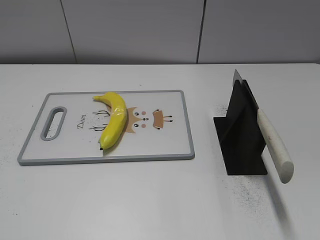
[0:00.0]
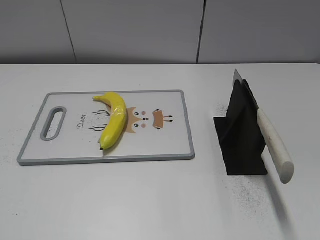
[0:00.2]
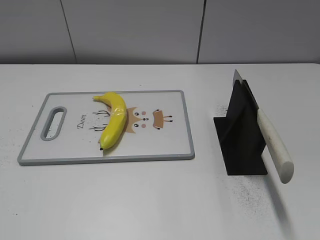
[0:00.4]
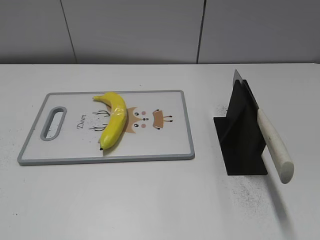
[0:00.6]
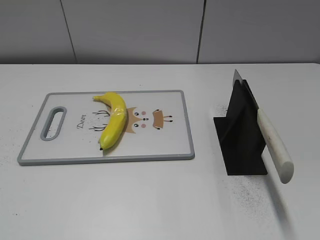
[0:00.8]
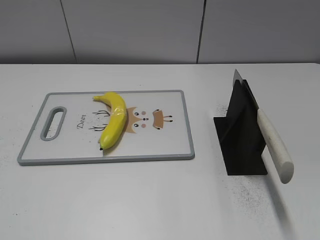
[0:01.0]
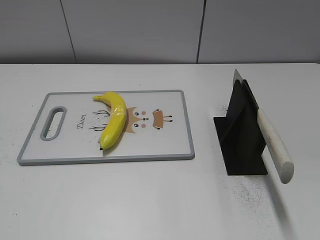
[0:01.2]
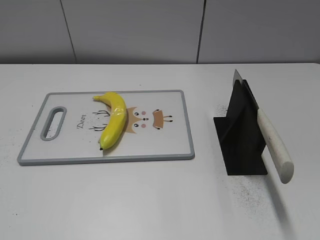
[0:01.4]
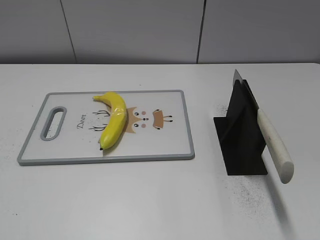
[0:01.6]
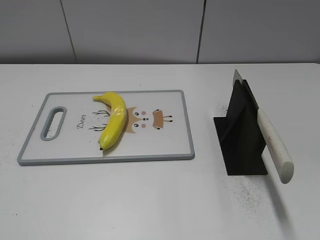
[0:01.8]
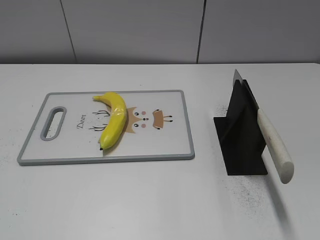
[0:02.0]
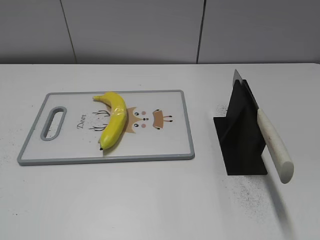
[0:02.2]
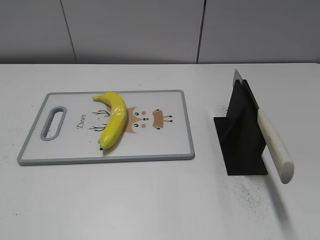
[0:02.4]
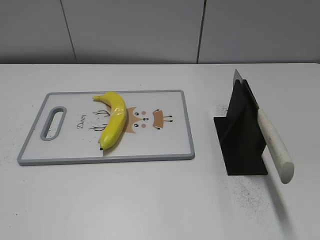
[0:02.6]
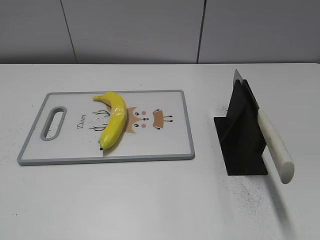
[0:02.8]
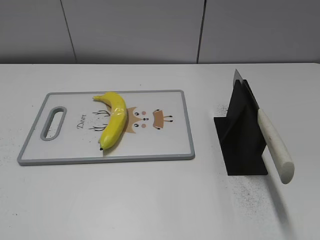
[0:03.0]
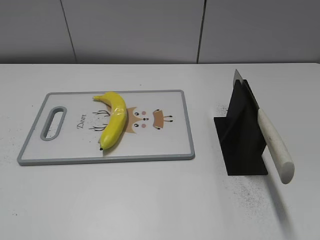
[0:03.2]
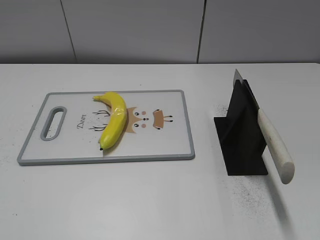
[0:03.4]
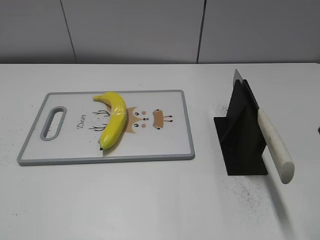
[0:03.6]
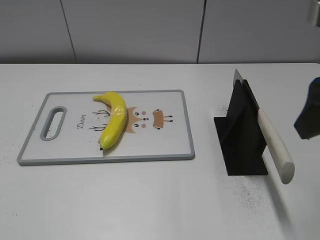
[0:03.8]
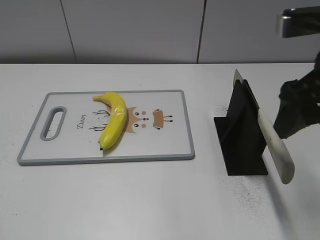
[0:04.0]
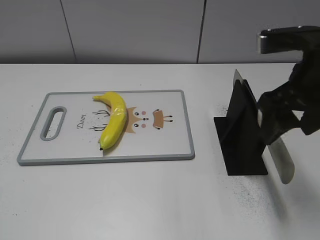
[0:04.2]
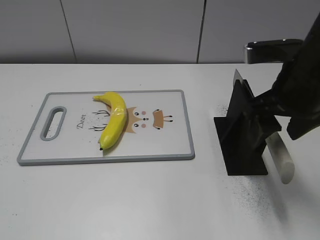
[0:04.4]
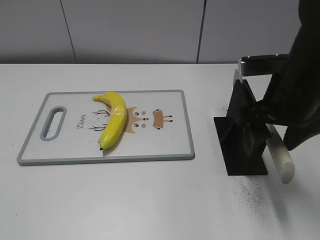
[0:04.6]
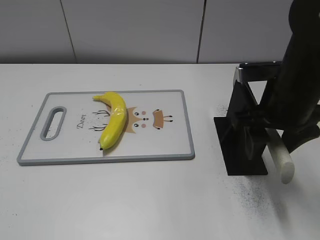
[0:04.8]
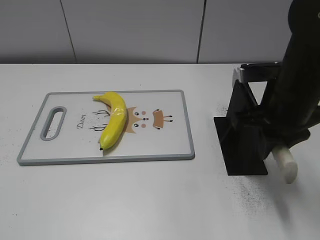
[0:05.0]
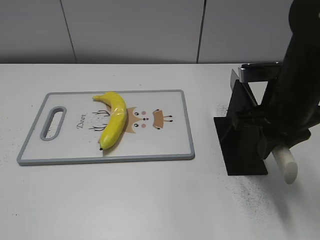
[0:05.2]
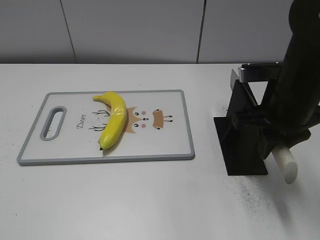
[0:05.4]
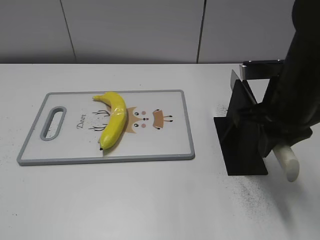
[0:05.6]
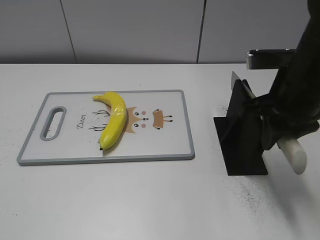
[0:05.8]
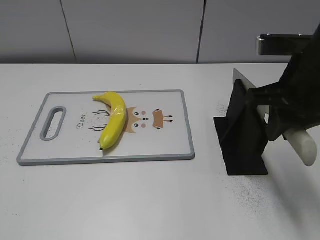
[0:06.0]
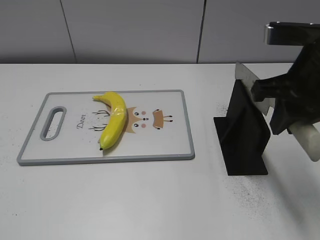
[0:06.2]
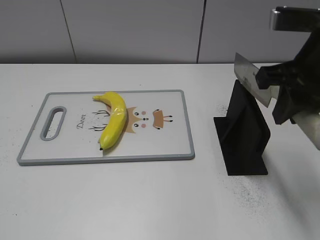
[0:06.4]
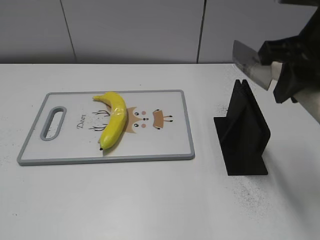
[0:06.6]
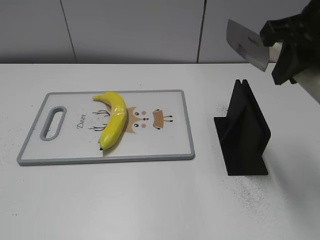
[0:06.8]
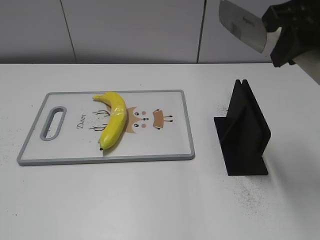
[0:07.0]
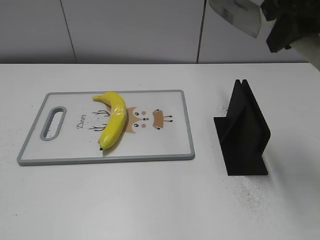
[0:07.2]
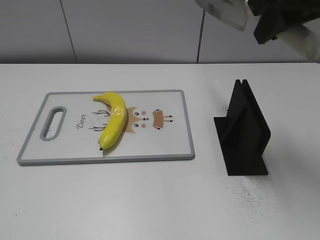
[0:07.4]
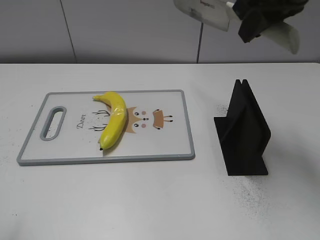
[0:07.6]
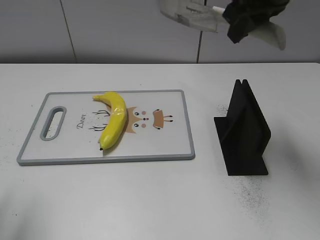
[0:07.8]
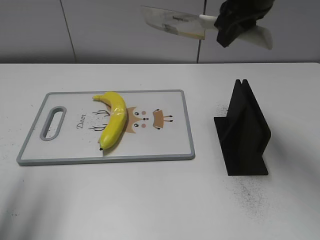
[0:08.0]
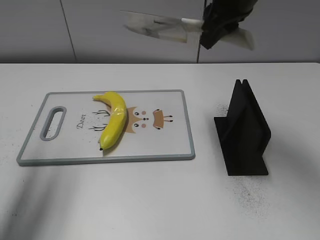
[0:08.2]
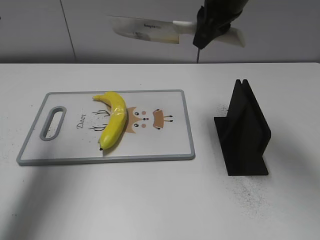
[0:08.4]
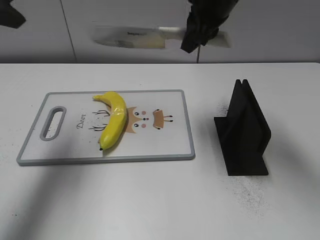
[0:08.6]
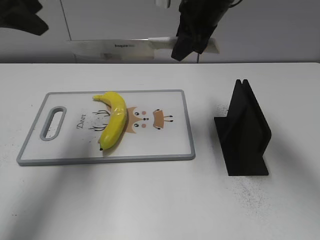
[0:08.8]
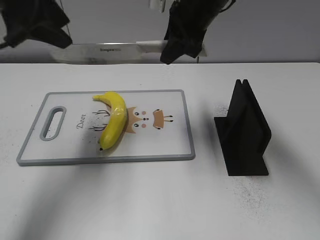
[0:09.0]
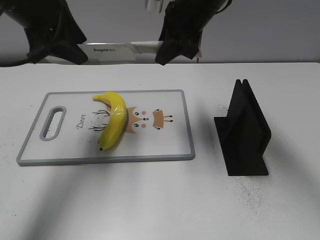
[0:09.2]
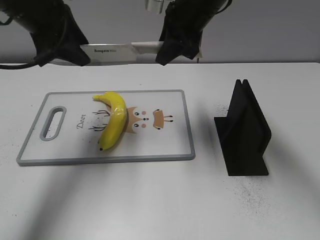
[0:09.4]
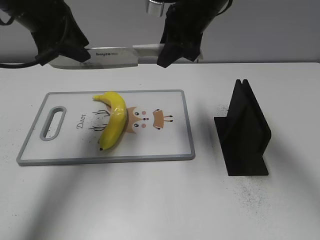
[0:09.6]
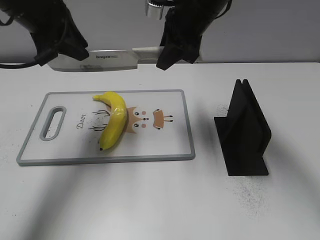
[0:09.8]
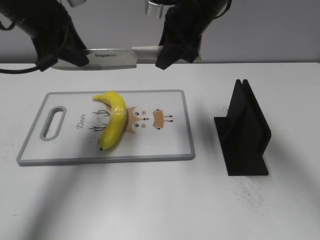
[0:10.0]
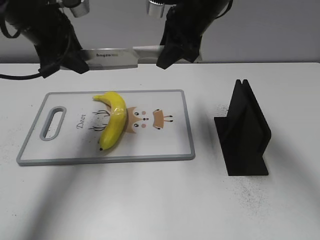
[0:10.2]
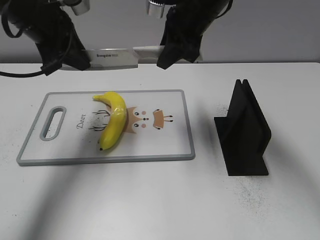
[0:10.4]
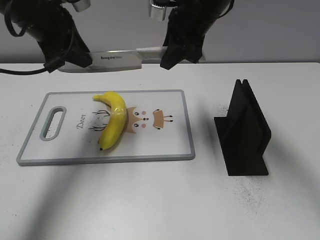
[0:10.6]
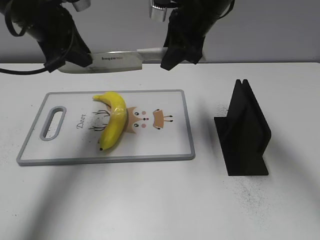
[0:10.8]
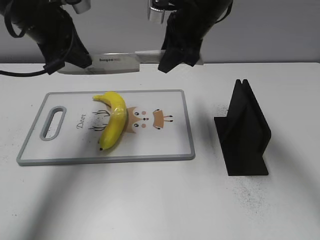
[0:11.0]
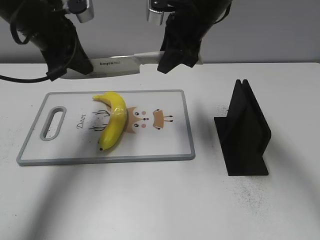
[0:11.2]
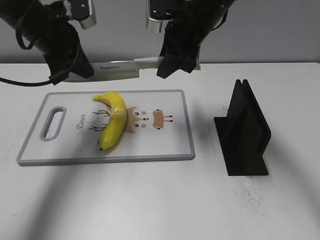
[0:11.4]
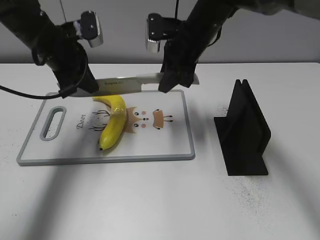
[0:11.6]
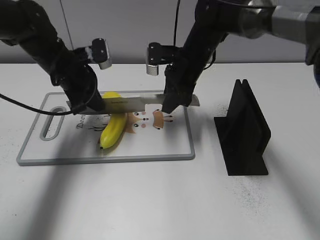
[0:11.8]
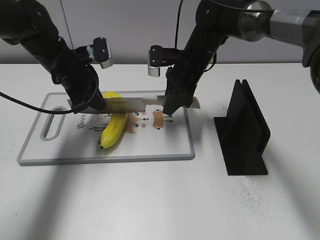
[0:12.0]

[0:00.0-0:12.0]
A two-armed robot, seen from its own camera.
Task of the whole recording: cut plastic banana.
Step, 0:00.0 to 0:07.2: Grab the knife handle with your right hand.
0:03.0 to 0:04.4: The right gripper is displaced forward, to the left and downward by approximately 20 cm.
0:04.4 to 0:06.0: The right gripper closes its fingers.
0:06.0 to 0:07.6: The right gripper goes roughly 10 cm upward and forward.
0:07.6 to 0:09.0: The left gripper goes approximately 25 cm forward, while the right gripper shifts approximately 15 cm forward, to the left and downward.
0:09.0 to 0:10.4: The left gripper goes some 5 cm downward, and closes.
0:10.4 to 0:12.0: Both grippers move downward, roughly 10 cm. The left gripper closes up.

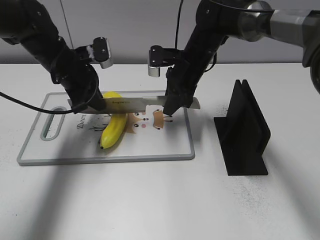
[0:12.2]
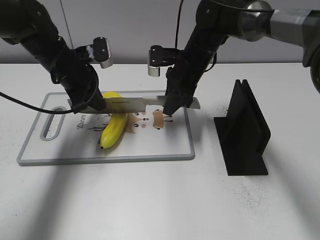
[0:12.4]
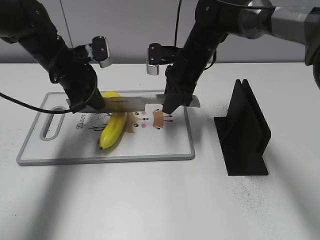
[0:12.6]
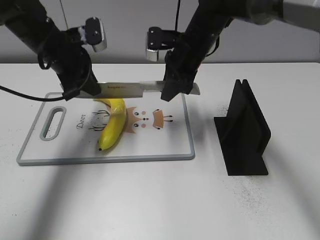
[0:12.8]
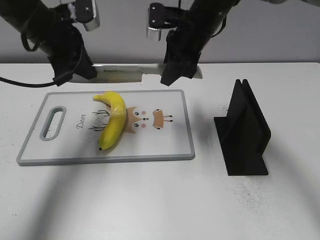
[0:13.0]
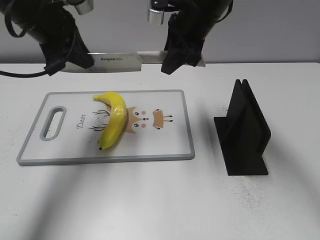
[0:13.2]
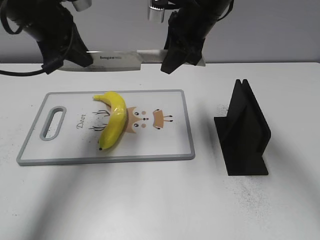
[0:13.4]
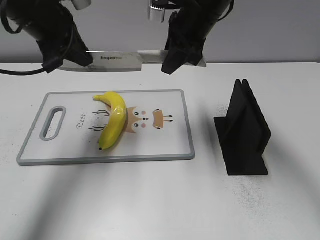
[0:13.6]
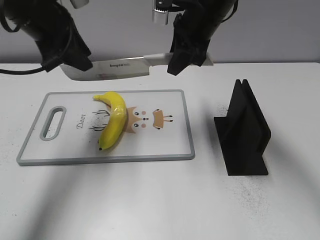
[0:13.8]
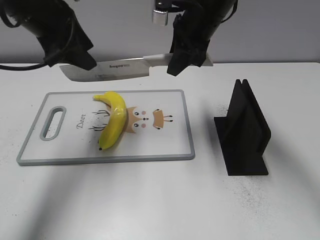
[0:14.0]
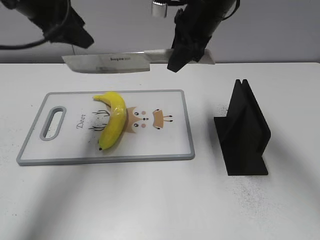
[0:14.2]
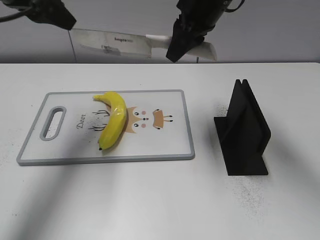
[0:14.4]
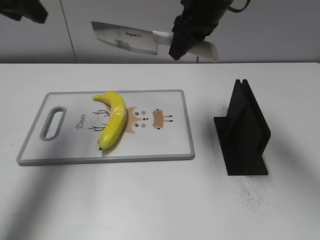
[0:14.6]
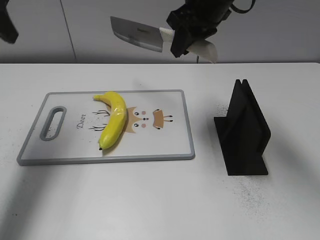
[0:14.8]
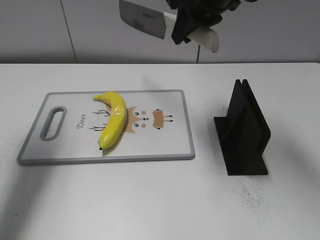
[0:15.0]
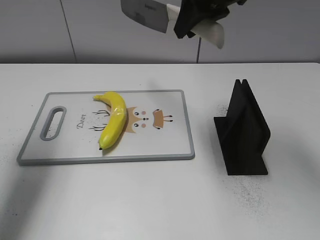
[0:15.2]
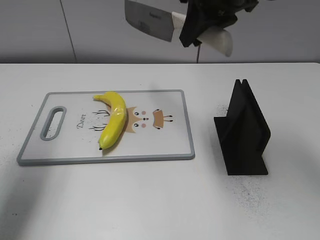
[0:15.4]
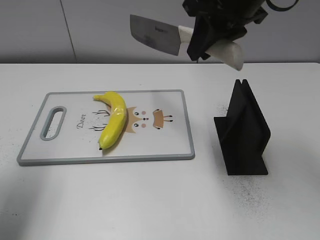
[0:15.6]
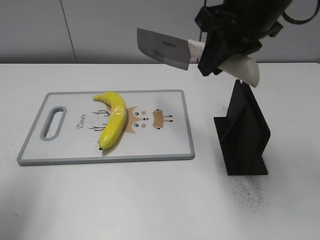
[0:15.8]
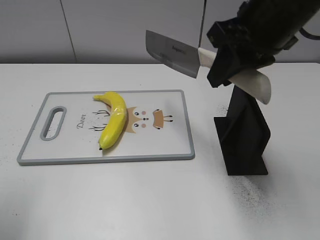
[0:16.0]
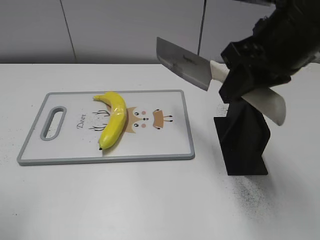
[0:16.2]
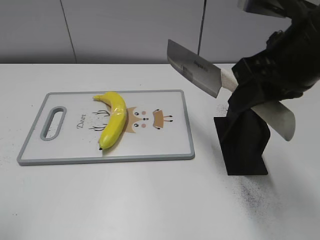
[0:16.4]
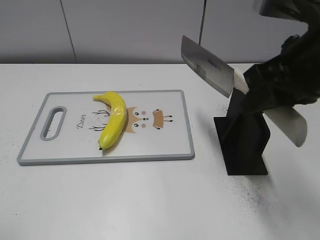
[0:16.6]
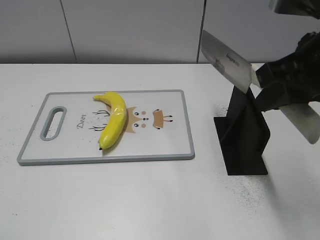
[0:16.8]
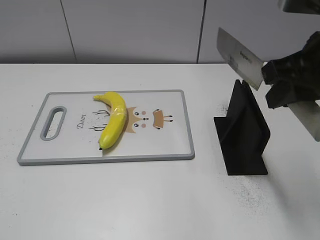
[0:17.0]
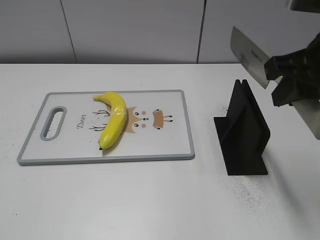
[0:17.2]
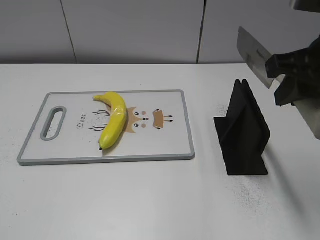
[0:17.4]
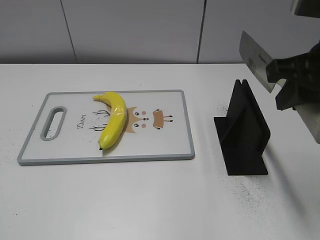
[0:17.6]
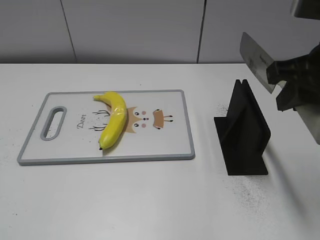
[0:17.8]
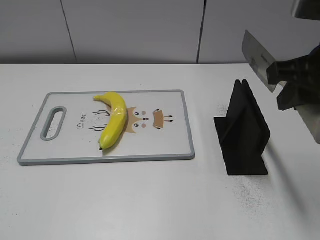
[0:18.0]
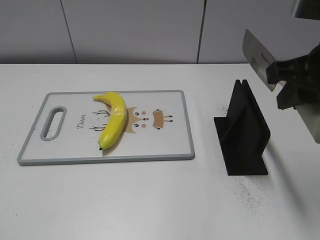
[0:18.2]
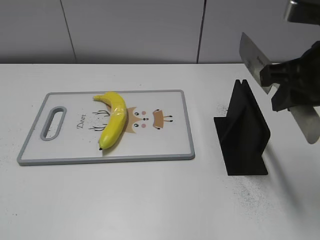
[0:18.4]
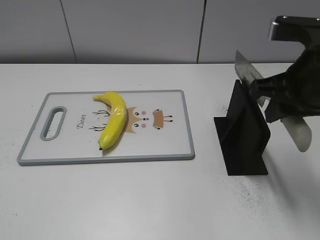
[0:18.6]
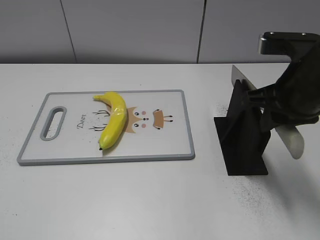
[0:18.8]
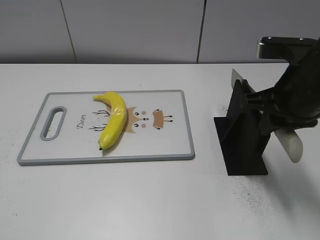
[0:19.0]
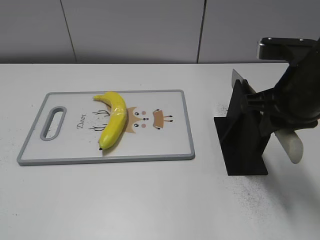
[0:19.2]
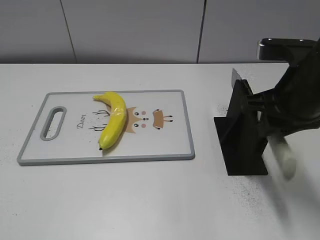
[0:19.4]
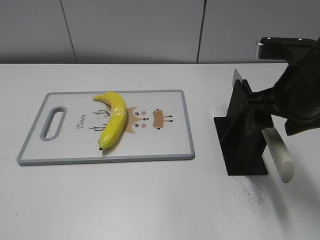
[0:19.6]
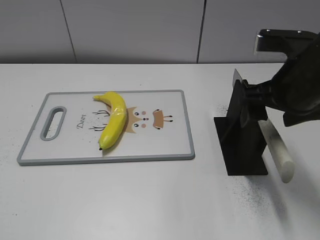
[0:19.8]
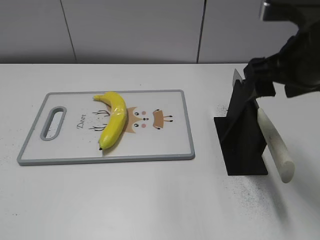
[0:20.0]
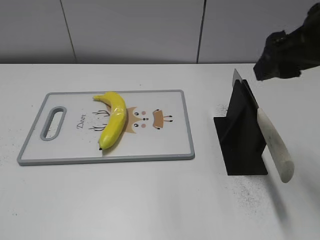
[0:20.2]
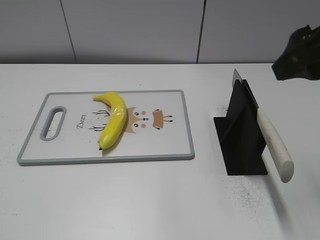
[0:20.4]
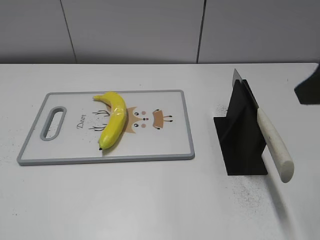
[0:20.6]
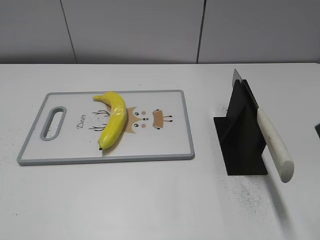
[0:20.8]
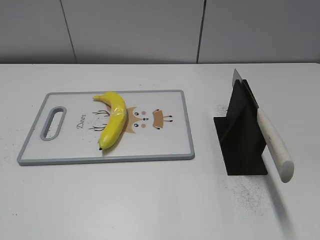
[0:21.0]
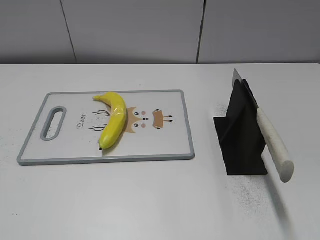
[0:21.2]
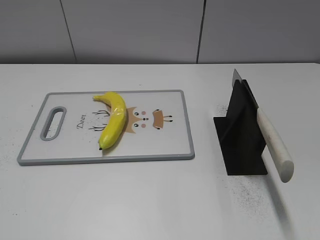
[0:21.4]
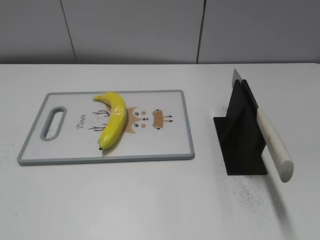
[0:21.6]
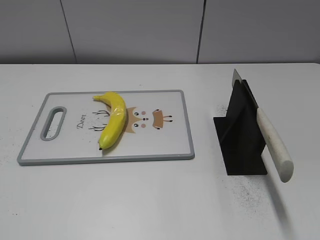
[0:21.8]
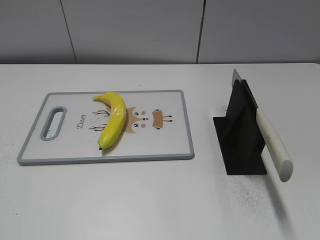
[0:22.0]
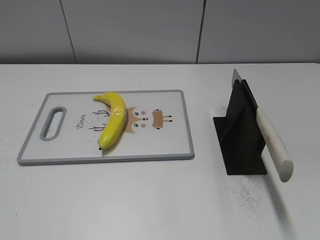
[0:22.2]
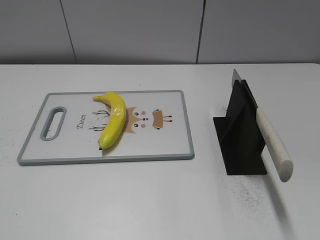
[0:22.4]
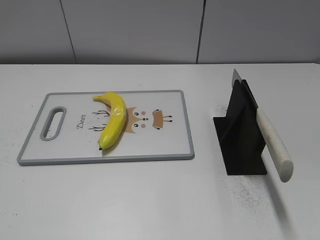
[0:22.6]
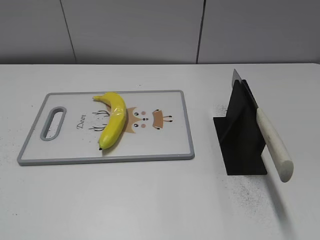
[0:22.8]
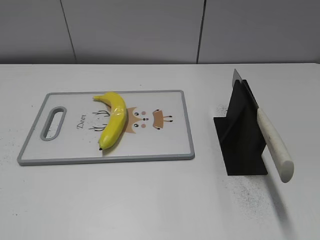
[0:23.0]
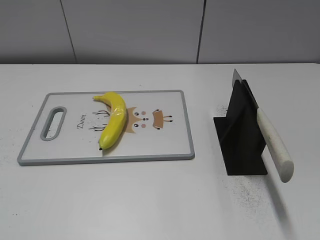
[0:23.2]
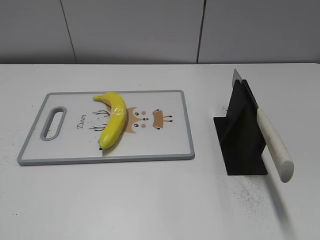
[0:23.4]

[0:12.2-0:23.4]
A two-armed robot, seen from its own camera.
Task of the whole recording: cut plastic banana.
Step, 0:13.2 to 0:15.2: Cut the banana with your right hand.
Step, 0:15.4 to 0:17.0: Lift the knife with your right hand.
Step, 0:17.2 to 0:23.4: Place the knife on the storage rack with your right hand.
0:12.2 to 0:13.8: Both grippers move upward, roughly 10 cm. The left gripper opens up.
0:13.8 to 0:15.4: The left gripper travels to the left and backward by roughly 15 cm. The right gripper shifts some 10 cm upward and backward.
0:15.4 to 0:17.0: The left gripper moves backward, some 20 cm. Meanwhile the right gripper travels backward and to the right by approximately 15 cm.
0:18.6 to 0:20.2: The right gripper travels upward by roughly 5 cm, and opens up.
0:20.2 to 0:21.8: The right gripper goes roughly 25 cm backward and to the right.
